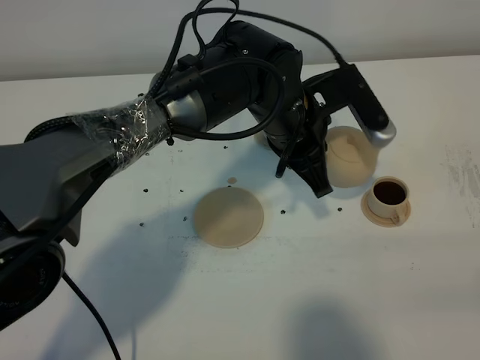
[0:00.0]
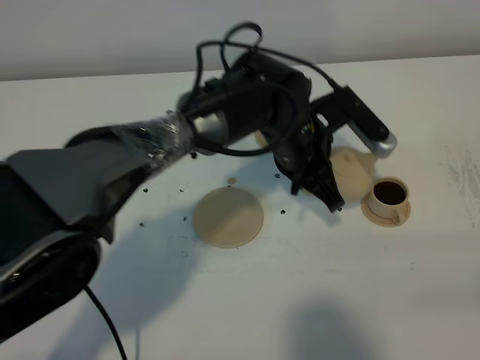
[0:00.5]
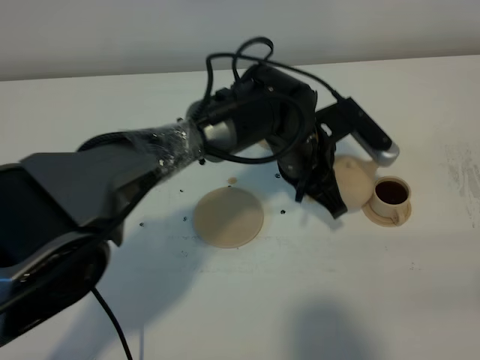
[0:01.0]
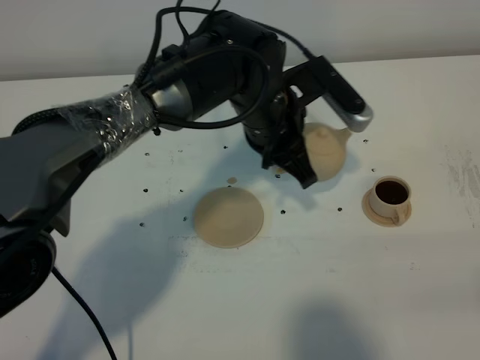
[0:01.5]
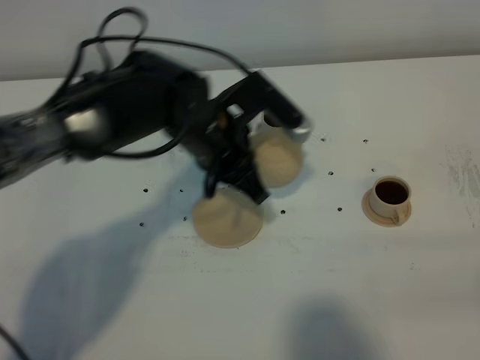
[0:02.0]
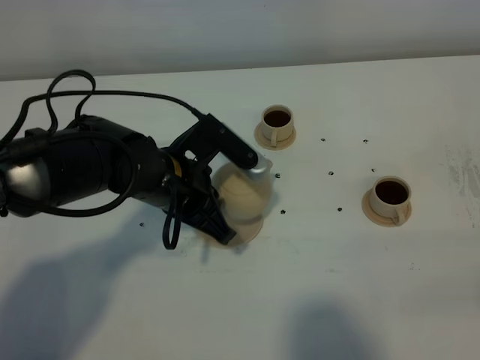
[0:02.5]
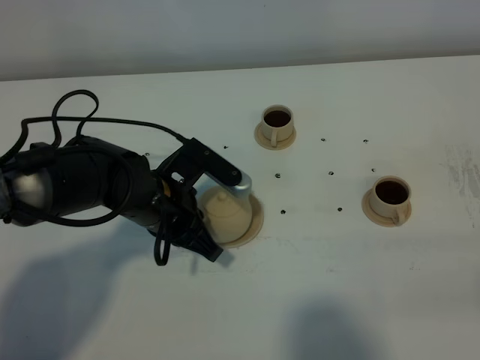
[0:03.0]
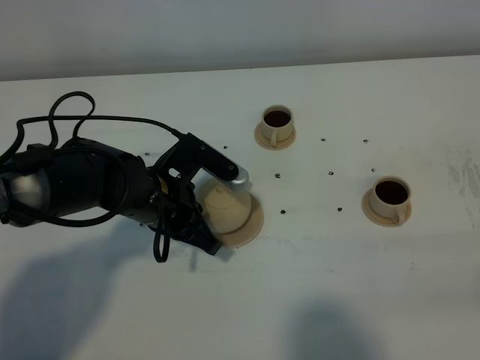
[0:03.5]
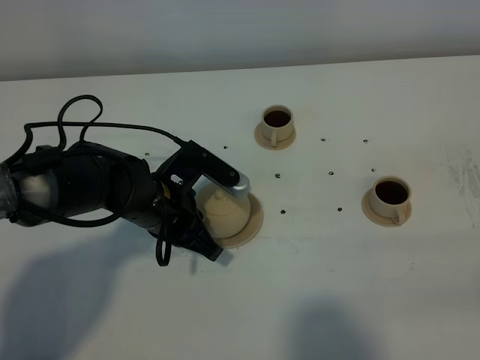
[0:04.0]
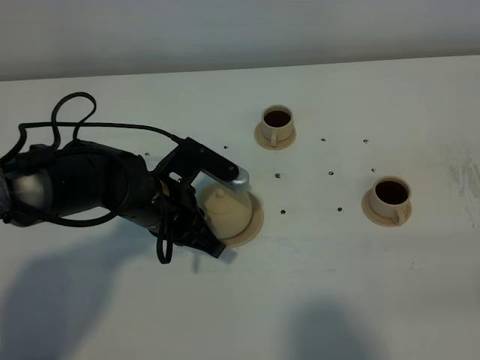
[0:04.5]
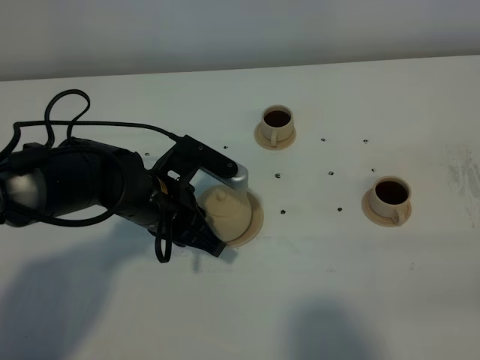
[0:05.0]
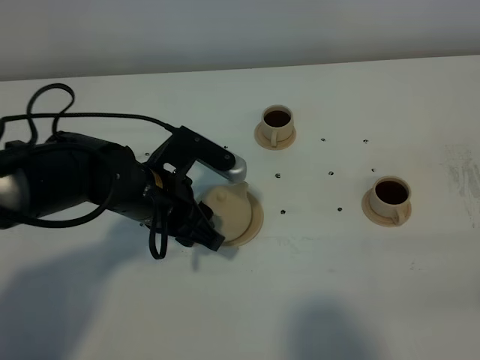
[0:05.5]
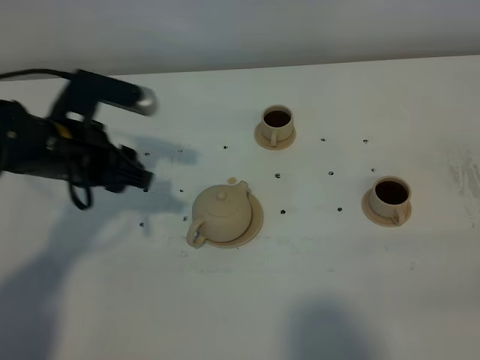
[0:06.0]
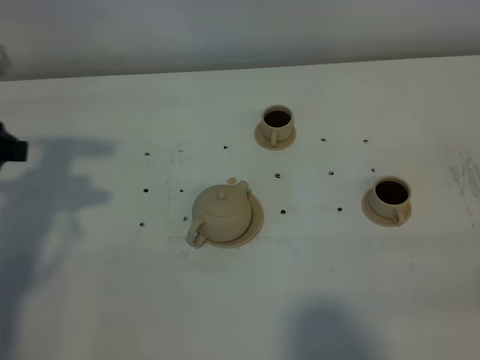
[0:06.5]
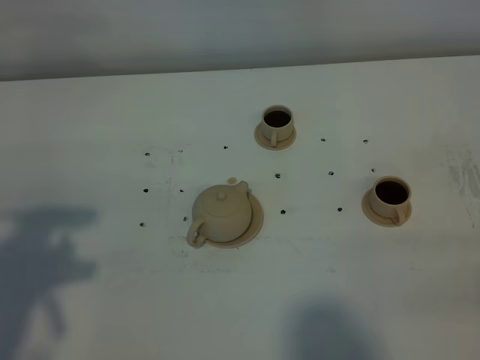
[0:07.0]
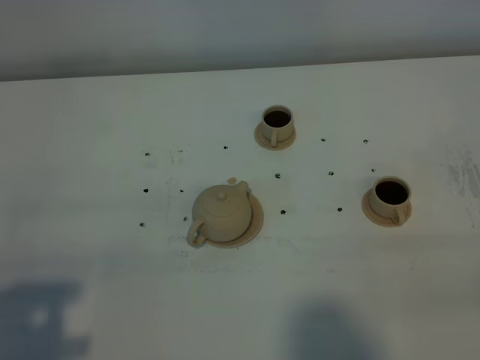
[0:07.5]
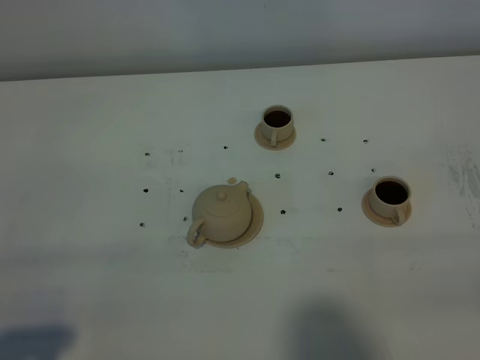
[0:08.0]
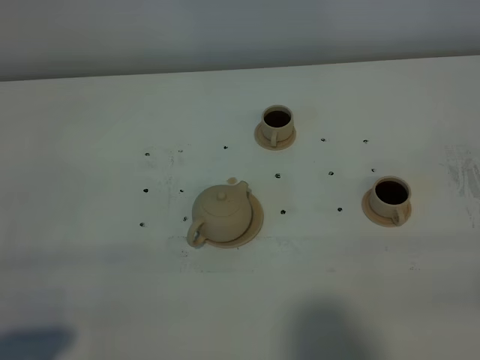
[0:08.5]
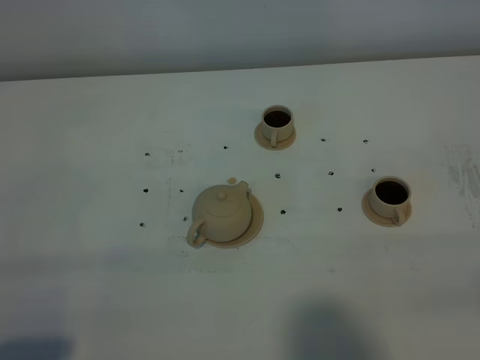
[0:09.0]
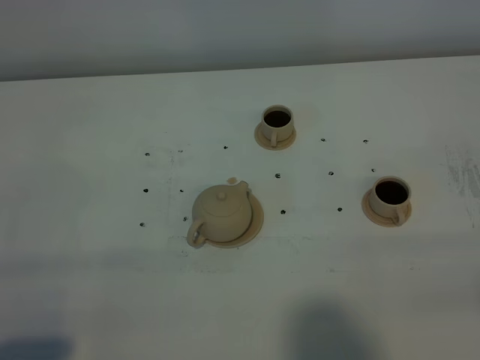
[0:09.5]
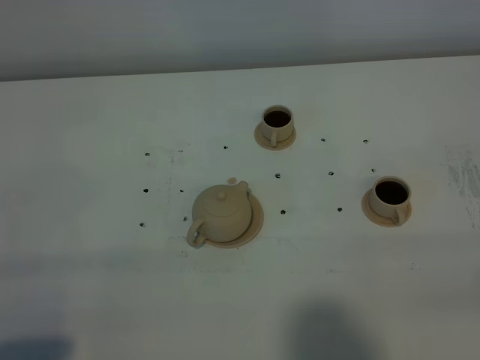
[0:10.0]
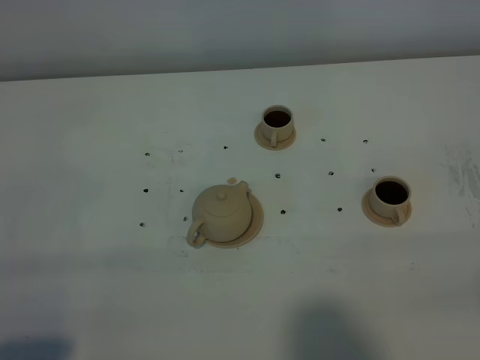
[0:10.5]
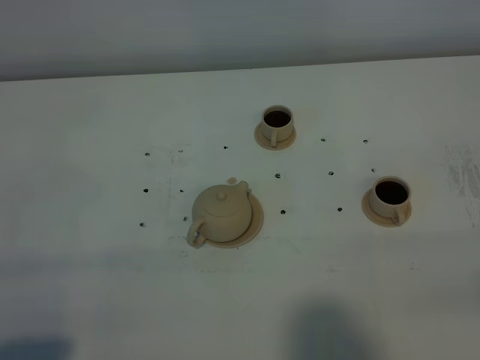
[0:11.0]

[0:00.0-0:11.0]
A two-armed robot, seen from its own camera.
Task of the whole recording: grasp the brown teapot and pour the tea into the two brown teacups one by one, put the brown teapot back in its original place.
0:00.0 to 0:02.0: The left gripper travels to the left by roughly 10 cm.
0:02.0 to 0:03.5: The left gripper heads to the left and downward, covering approximately 10 cm.
0:03.5 to 0:05.5: The left gripper opens its fingers.
0:05.5 to 0:07.5: The left gripper is displaced backward, to the left and upward by about 35 cm.
0:07.5 to 0:09.0: The left gripper moves downward, some 5 cm.
0:09.0 to 0:11.0: The two grippers keep their place.
